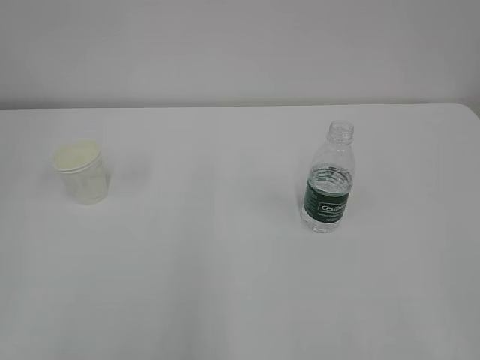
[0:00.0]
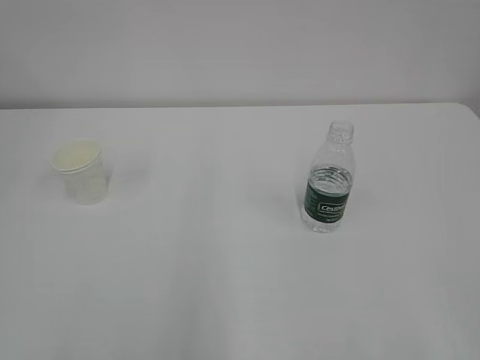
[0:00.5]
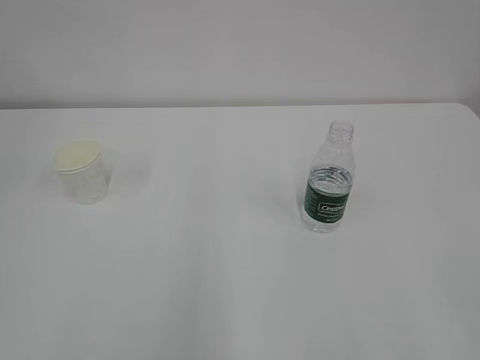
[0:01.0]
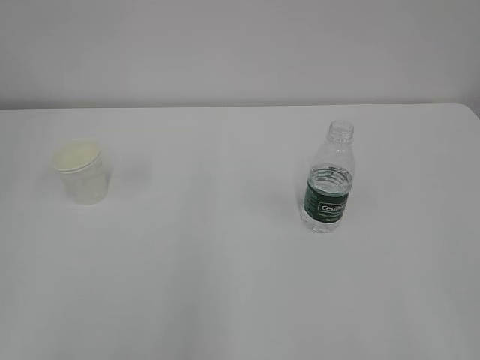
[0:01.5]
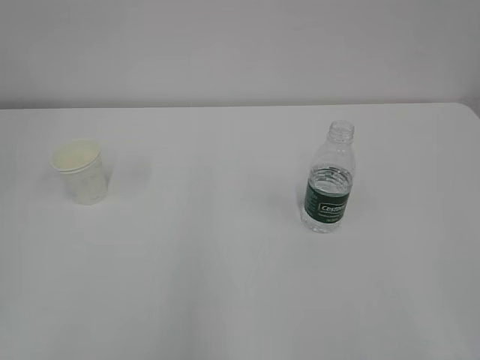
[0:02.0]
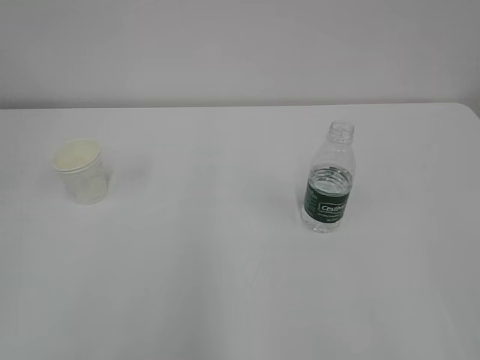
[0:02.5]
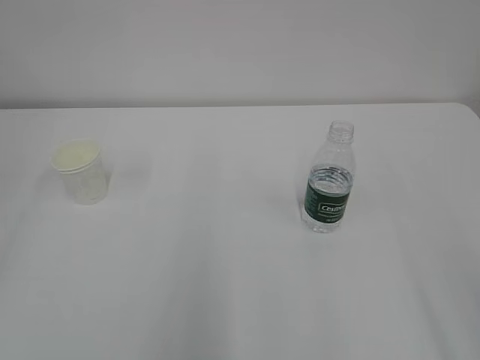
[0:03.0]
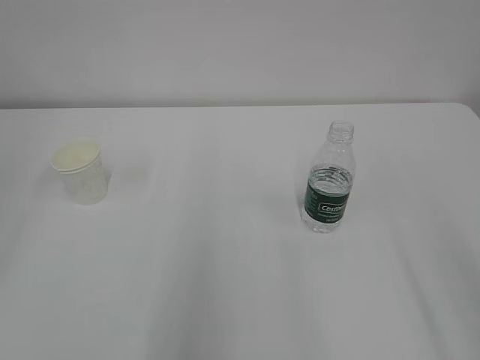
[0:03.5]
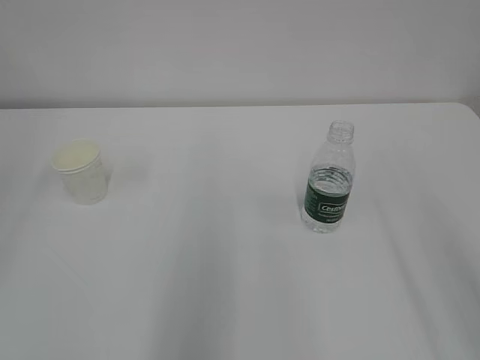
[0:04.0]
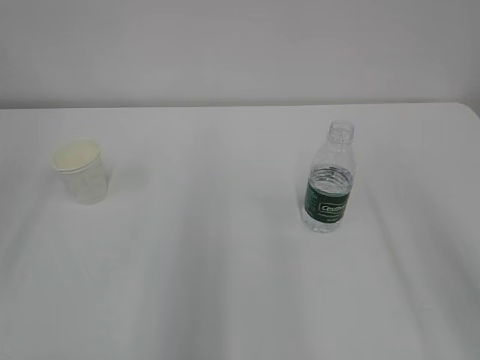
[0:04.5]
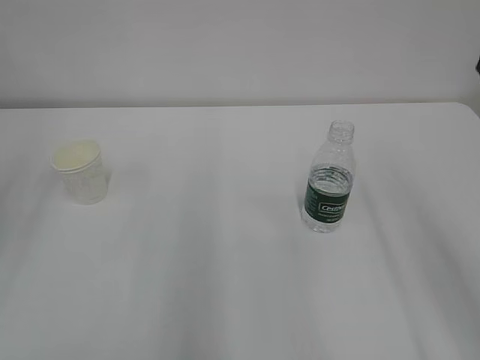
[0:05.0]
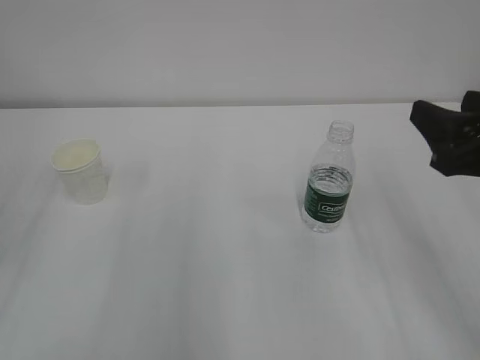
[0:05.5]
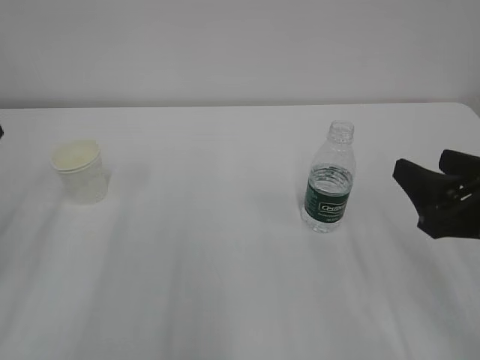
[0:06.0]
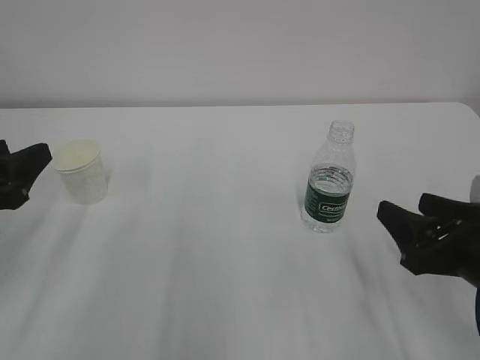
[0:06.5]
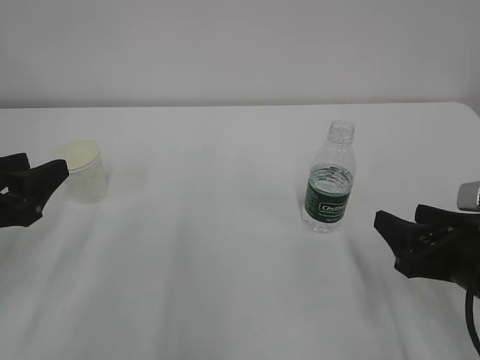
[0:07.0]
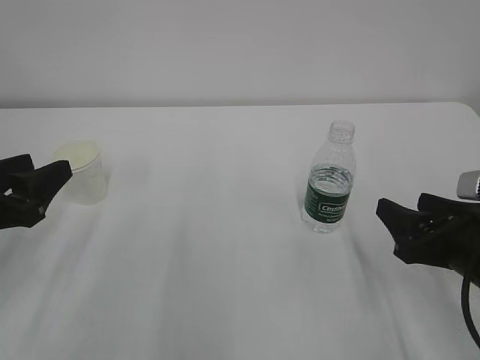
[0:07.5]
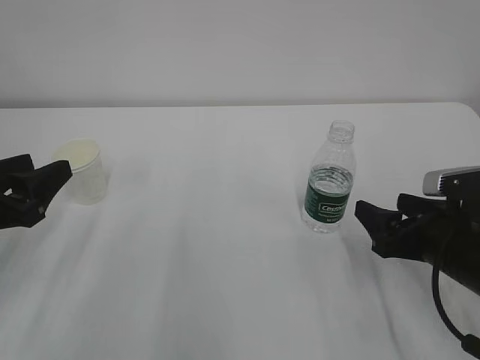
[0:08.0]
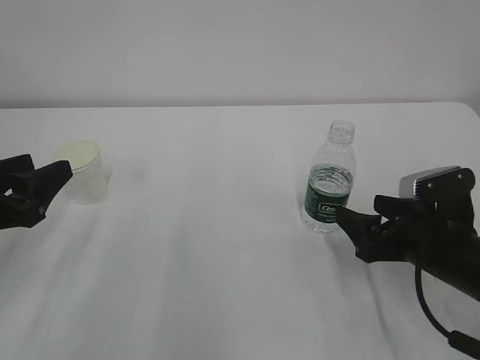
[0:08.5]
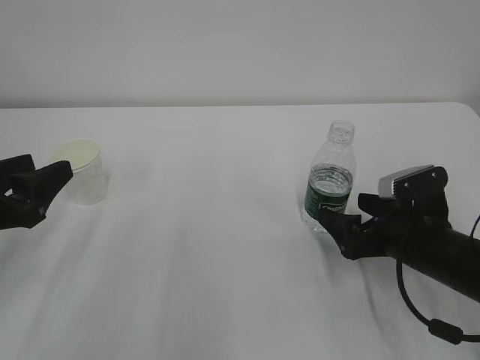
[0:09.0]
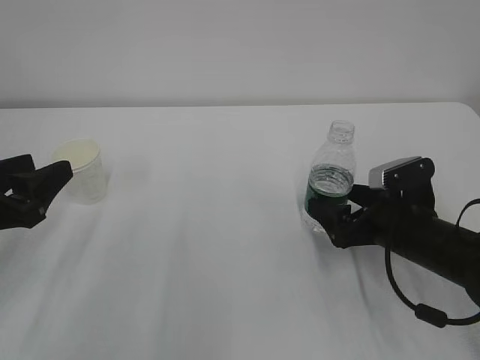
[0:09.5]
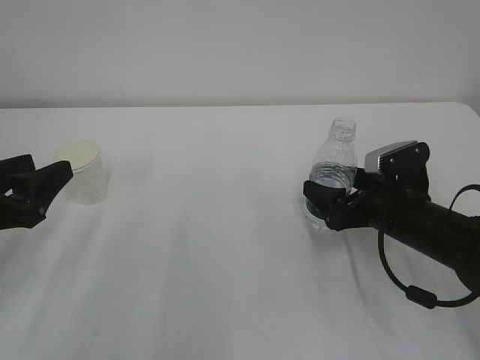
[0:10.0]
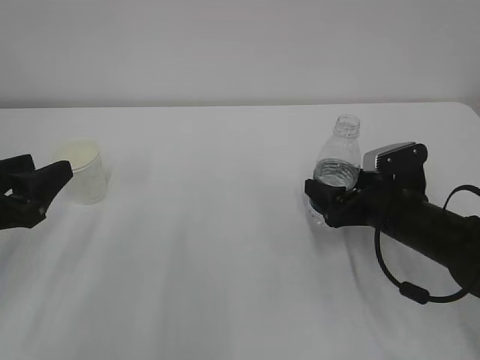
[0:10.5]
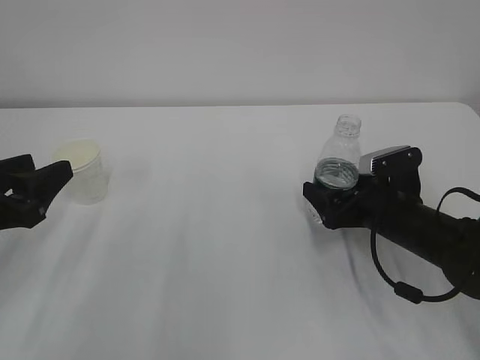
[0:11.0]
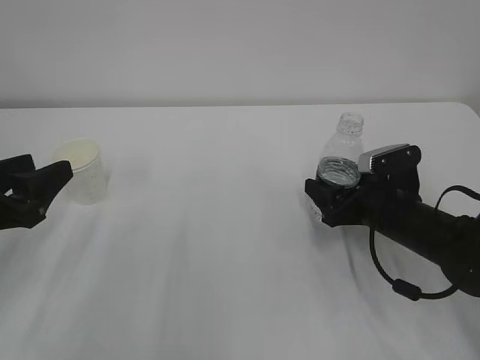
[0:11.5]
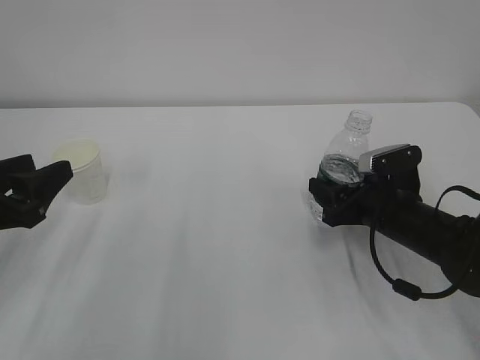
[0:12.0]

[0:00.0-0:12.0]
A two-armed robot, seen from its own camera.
0:04.0 to 0:06.0: The right gripper moves downward and forward, roughly 15 cm.
0:06.0 to 0:08.0: The left gripper moves downward, some 5 cm; the right gripper shifts roughly 10 cm downward.
0:08.0 to 0:10.0: The right gripper moves forward, approximately 5 cm.
0:10.0 to 0:12.0: The right gripper closes.

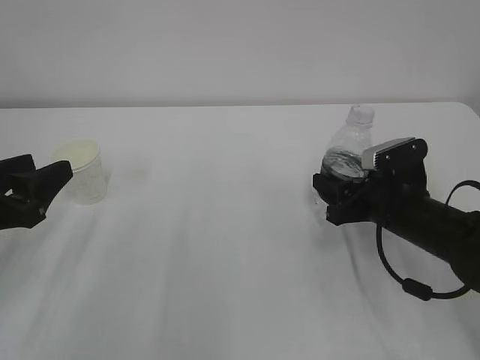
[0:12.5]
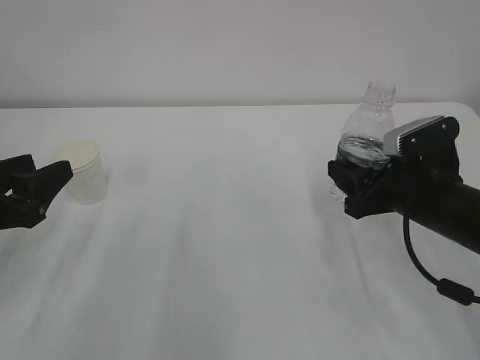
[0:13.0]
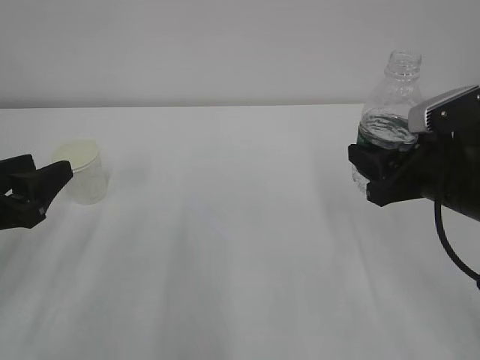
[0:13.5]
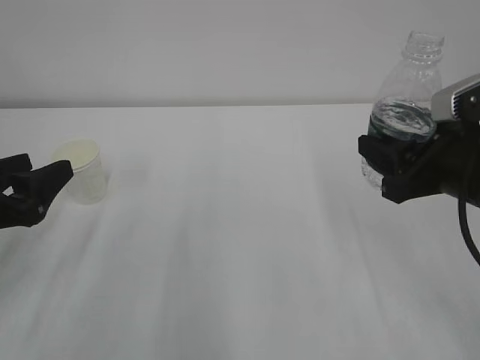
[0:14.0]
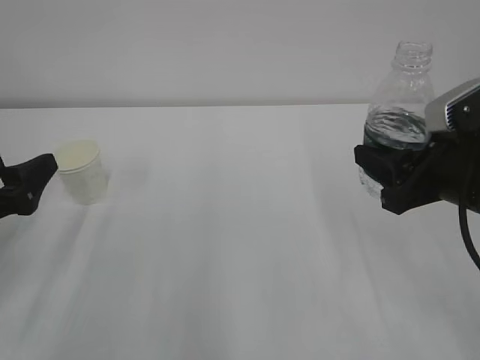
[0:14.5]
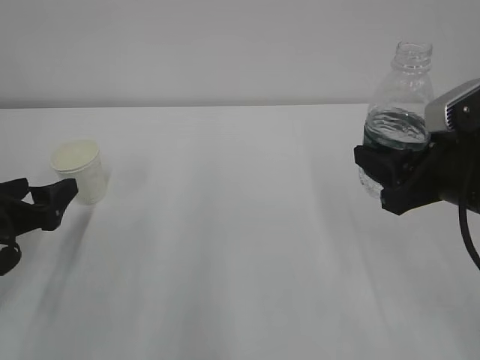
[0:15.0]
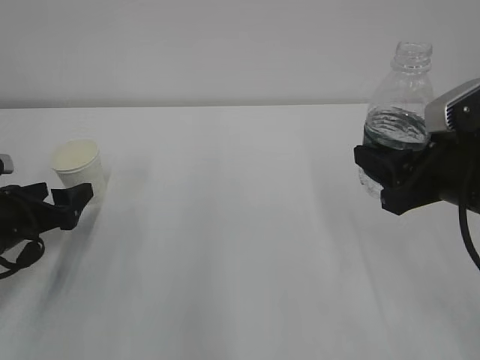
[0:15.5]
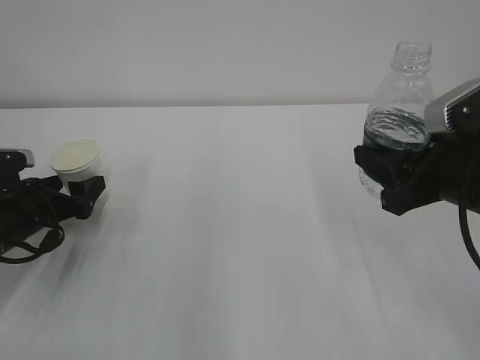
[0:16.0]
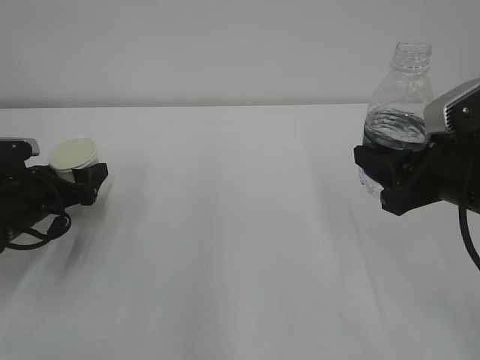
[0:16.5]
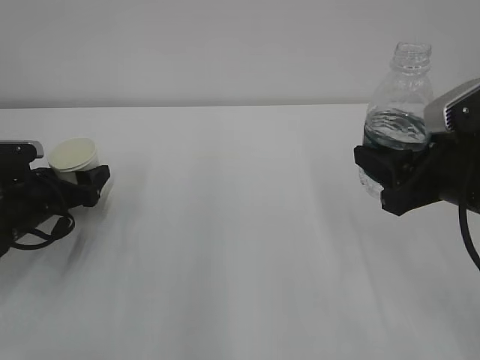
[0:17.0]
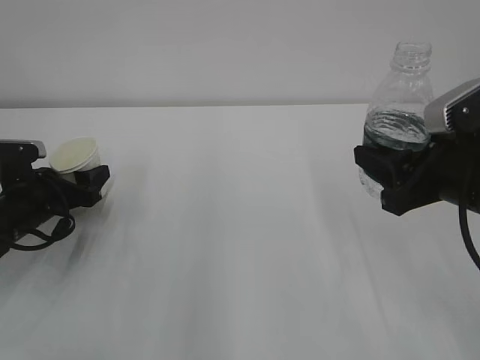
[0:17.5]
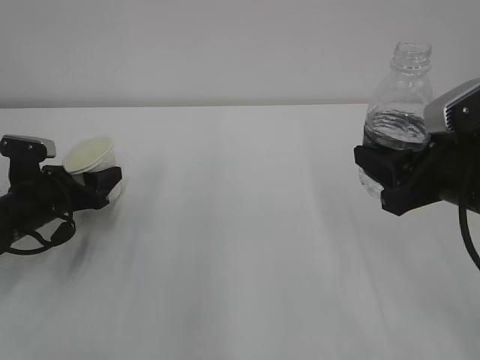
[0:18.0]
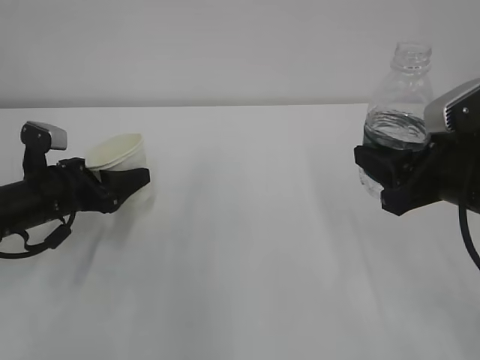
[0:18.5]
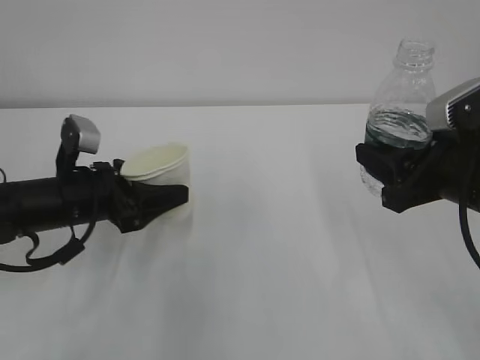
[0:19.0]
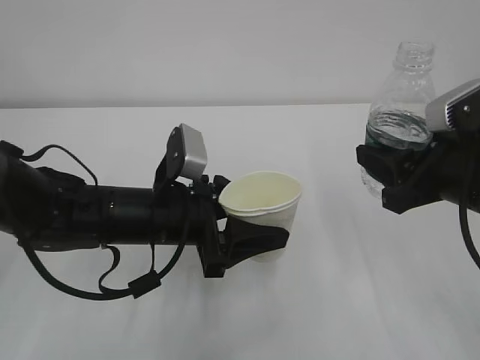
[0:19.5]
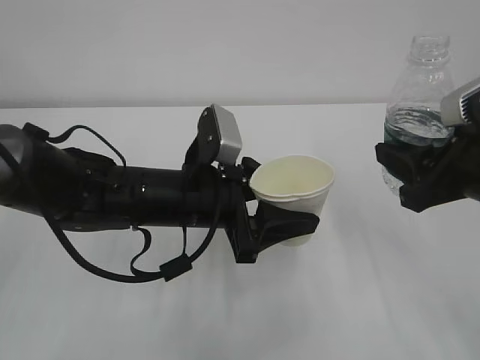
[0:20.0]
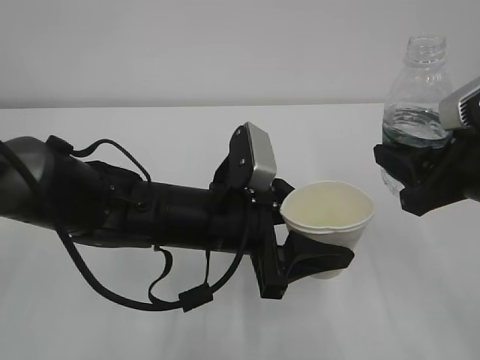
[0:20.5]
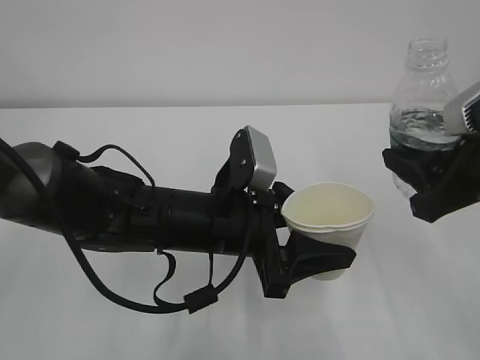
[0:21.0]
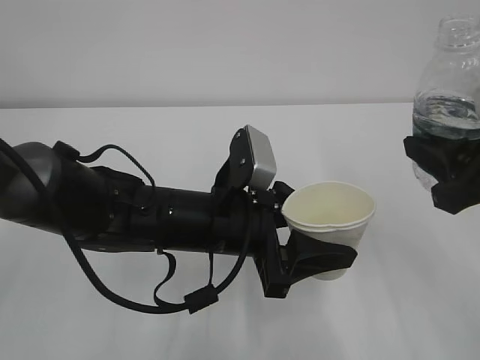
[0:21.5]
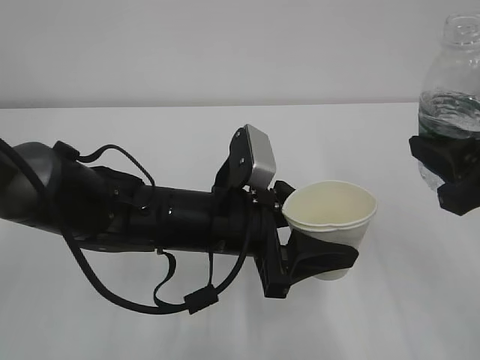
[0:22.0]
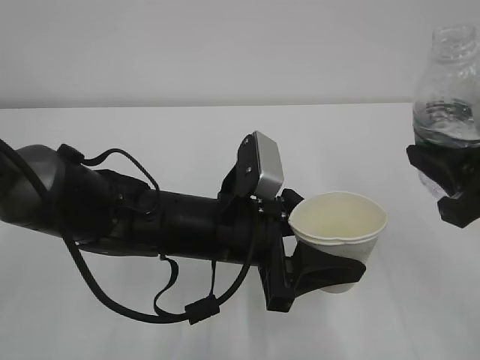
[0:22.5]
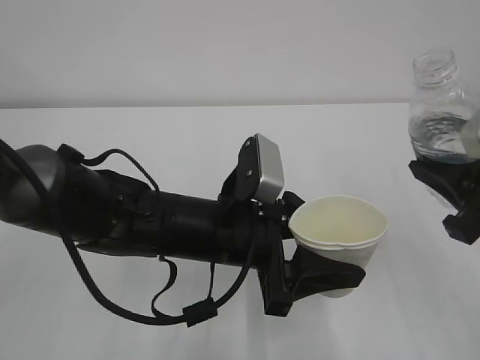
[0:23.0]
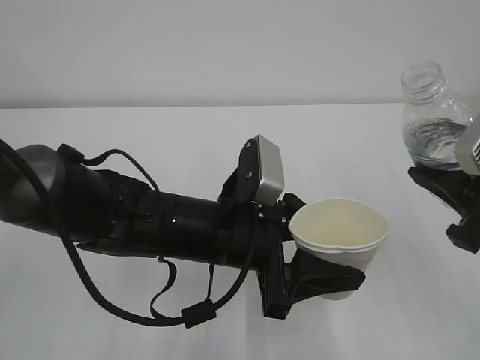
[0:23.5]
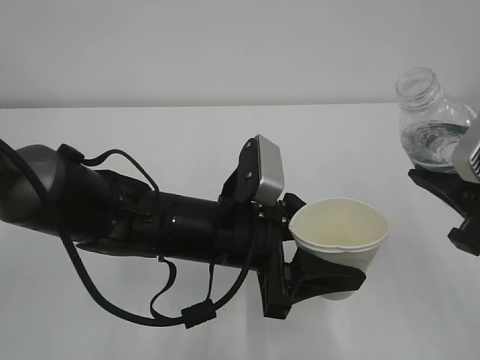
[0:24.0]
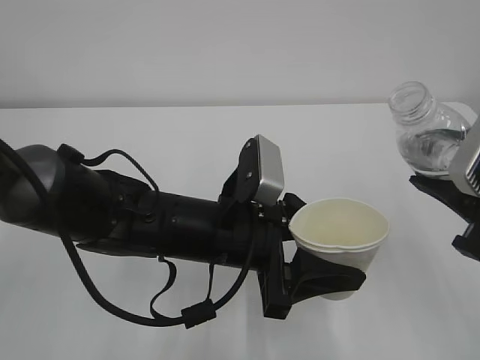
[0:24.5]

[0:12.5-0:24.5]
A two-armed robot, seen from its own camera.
0:12.5 to 0:14.5: The left gripper opens up. The right gripper is displaced upward and backward by roughly 15 cm.
0:14.5 to 0:16.5: The left gripper travels forward and downward by approximately 15 cm.
0:16.5 to 0:18.5: The left gripper shifts by roughly 5 cm, and closes.
0:18.5 to 0:20.5: The left gripper travels to the right and backward by about 25 cm.
0:20.5 to 0:22.5: There are only small adjustments of the grippers.

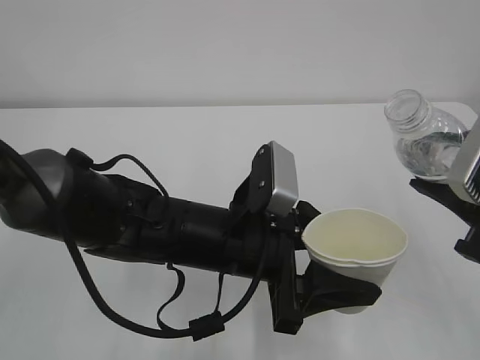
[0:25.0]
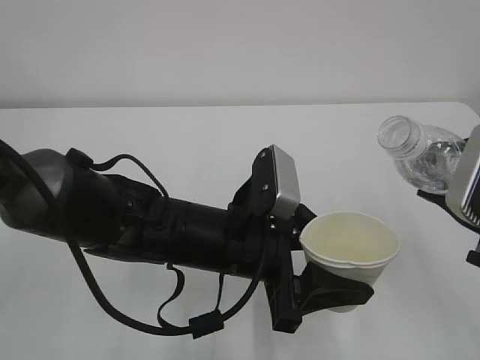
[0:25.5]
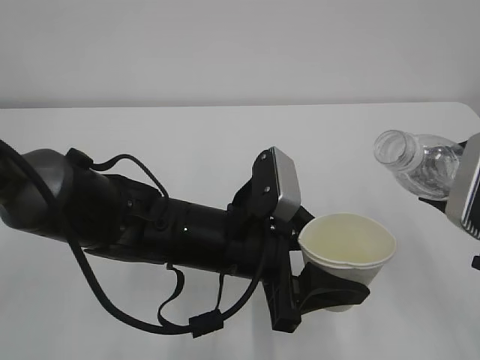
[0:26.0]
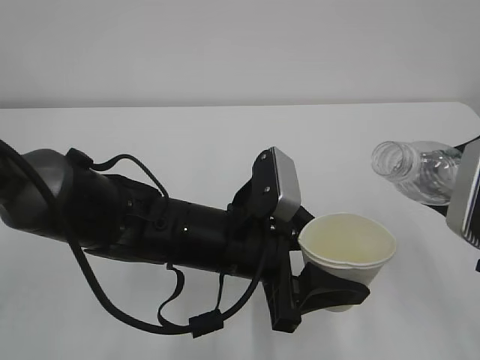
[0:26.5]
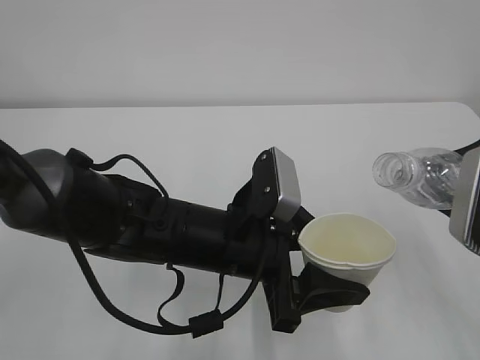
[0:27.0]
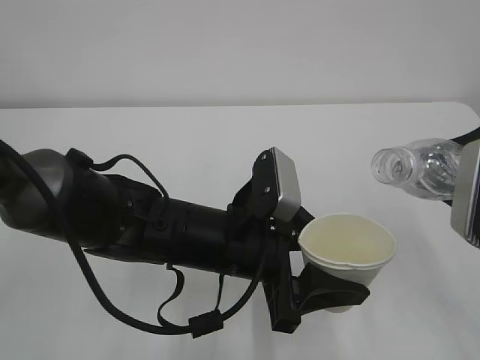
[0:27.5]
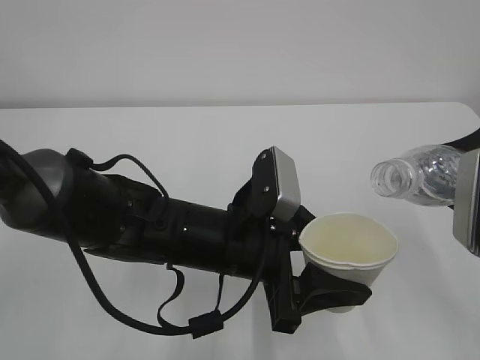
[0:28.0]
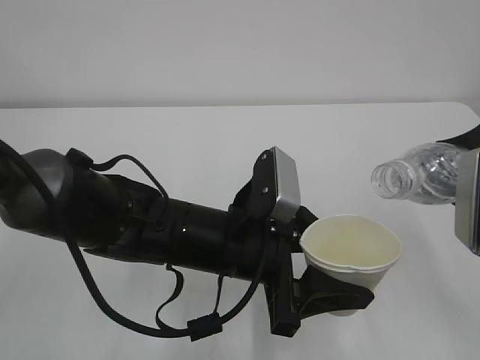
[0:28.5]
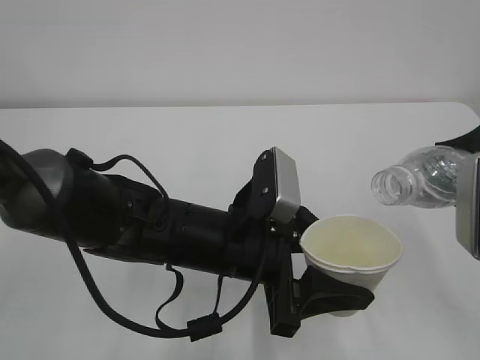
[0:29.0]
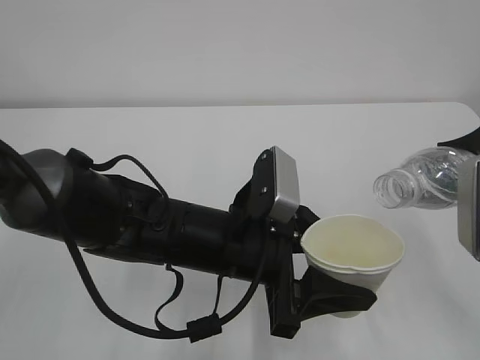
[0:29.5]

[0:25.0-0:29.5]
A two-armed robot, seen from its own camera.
0:27.0 to 0:29.5: The grippers move only a little.
